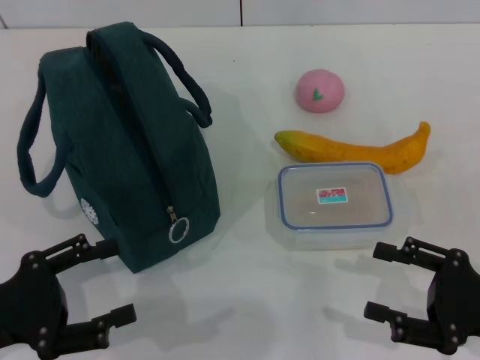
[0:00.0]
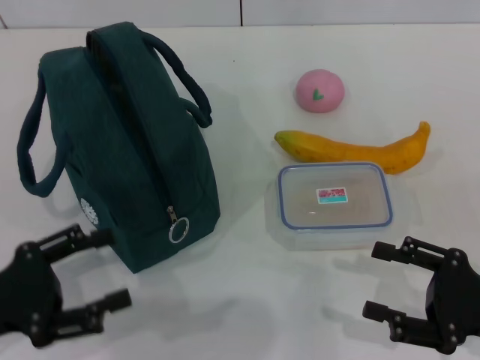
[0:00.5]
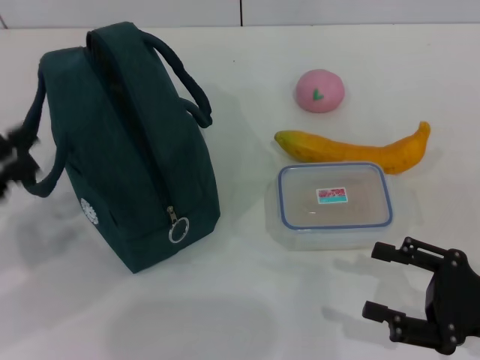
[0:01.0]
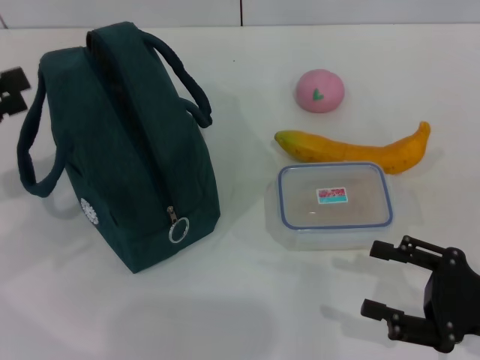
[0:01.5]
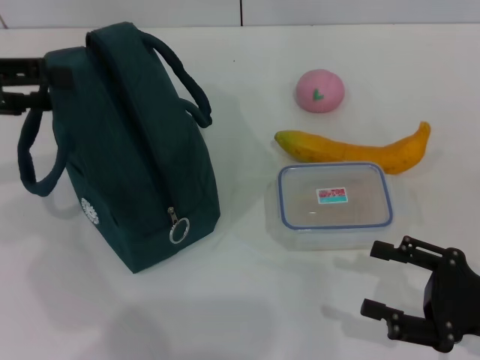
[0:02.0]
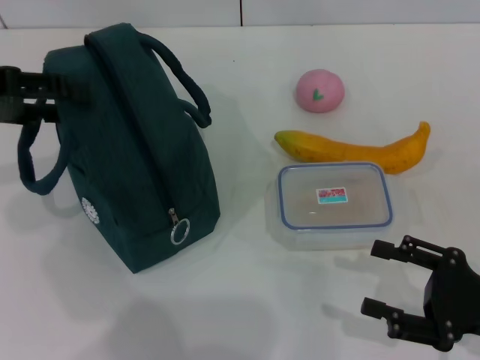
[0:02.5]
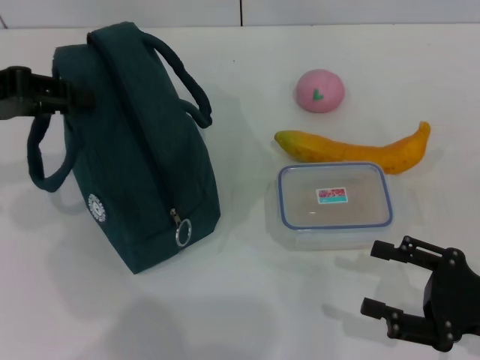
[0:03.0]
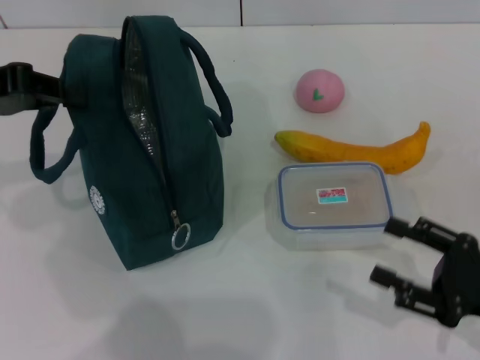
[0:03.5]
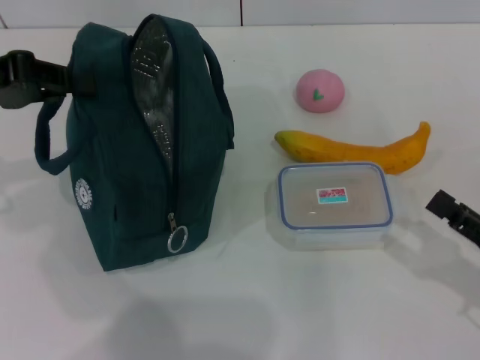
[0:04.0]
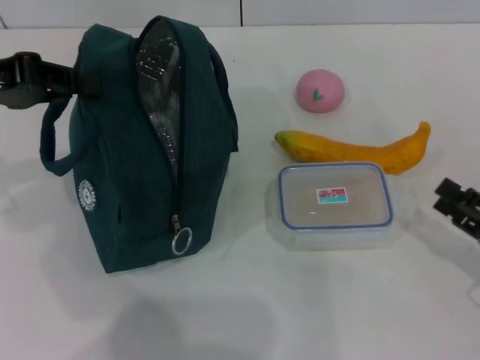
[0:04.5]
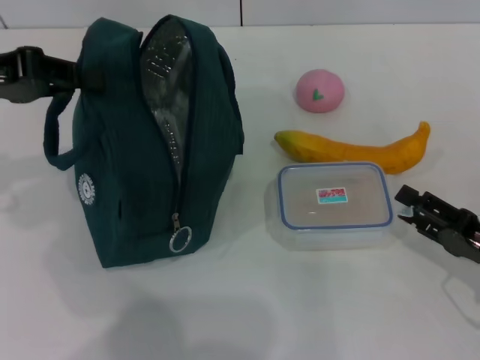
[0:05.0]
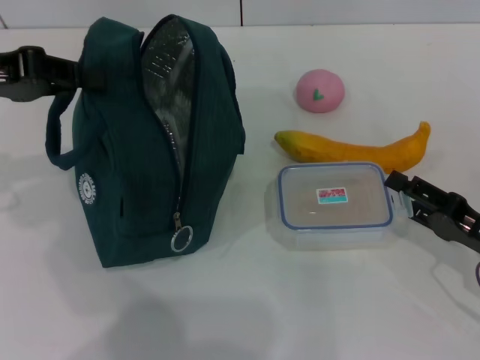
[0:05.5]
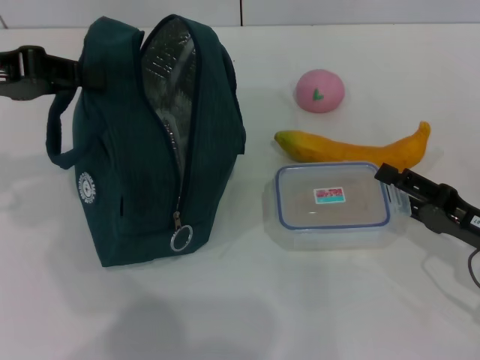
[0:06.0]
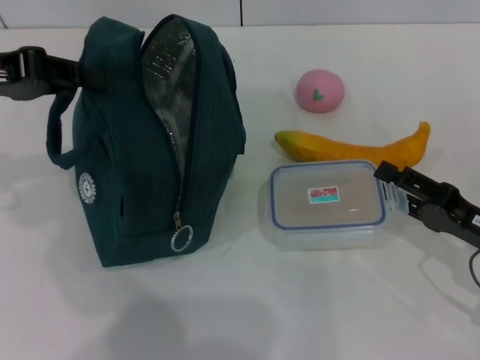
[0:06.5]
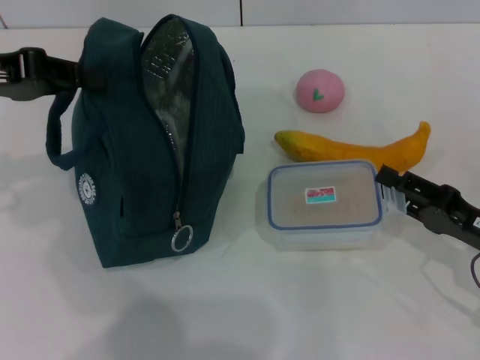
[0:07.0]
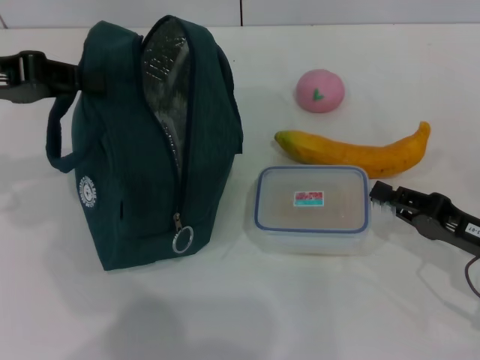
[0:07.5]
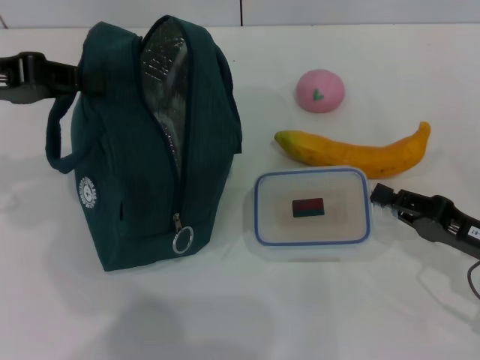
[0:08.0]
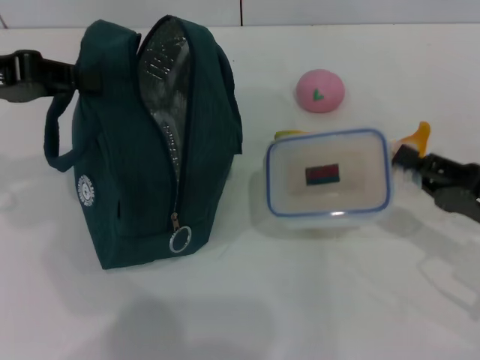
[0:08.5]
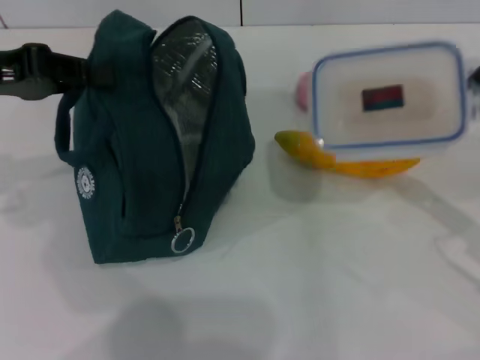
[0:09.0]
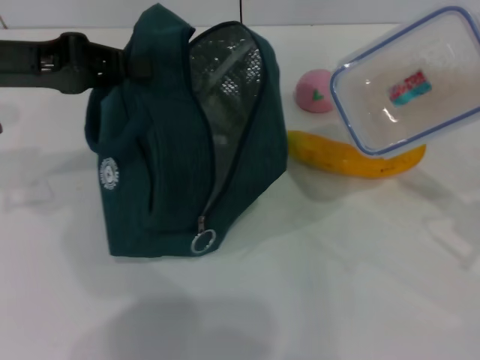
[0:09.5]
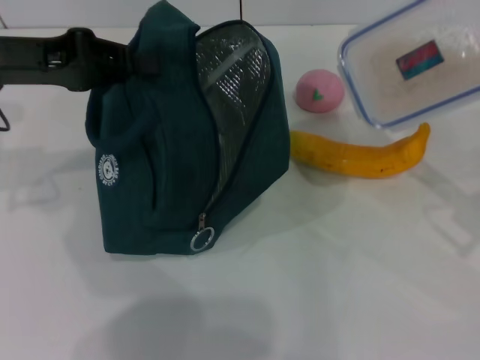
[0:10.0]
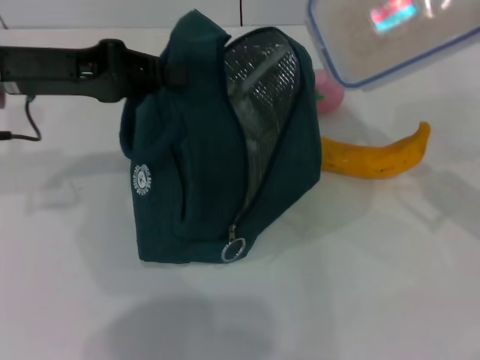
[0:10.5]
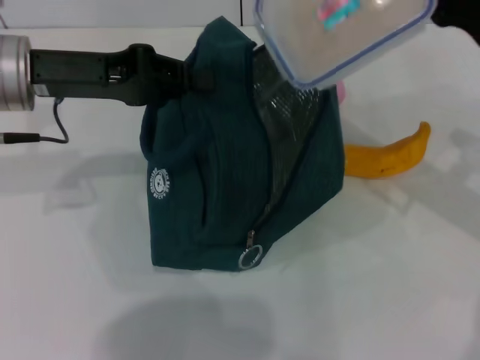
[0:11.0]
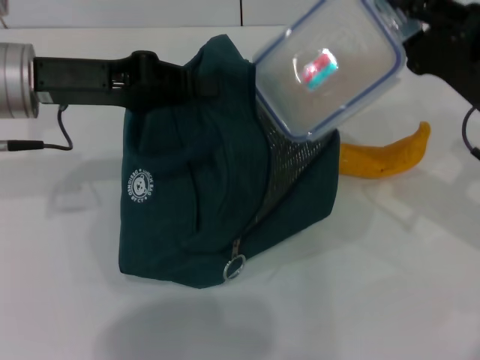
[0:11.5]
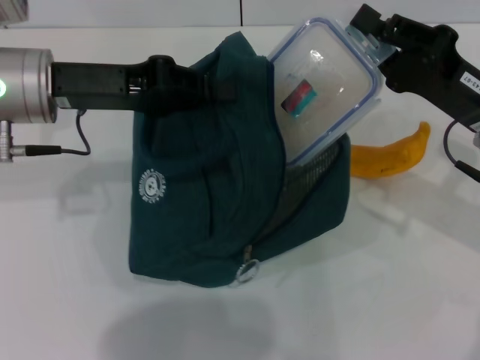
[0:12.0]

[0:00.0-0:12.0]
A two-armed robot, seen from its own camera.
Step, 0.0 to 4.0 s: Hold the lunch bag with your left hand.
Step, 4.5 to 7.5 s: Pick up the lunch box with your right hand.
0.0 to 2.0 s: The left gripper travels forward and upward by about 20 cm.
2.0 to 4.0 s: The left gripper closes its fingers.
4.0 to 6.0 s: The right gripper shifts about 5 cm forward.
6.0 to 8.0 s: The right gripper closes.
8.0 to 10.0 s: The right gripper goes approximately 10 cm upward.
10.0 to 12.0 s: The right gripper heads to the left, covering approximately 5 cm. Meanwhile the left gripper moves to the right, some 5 cm.

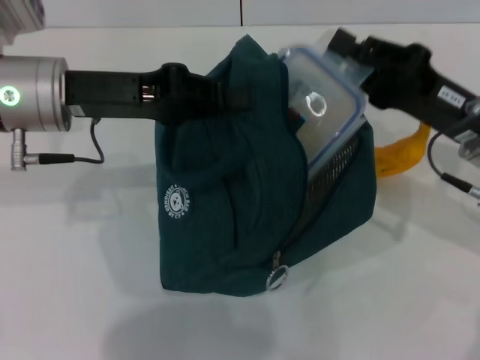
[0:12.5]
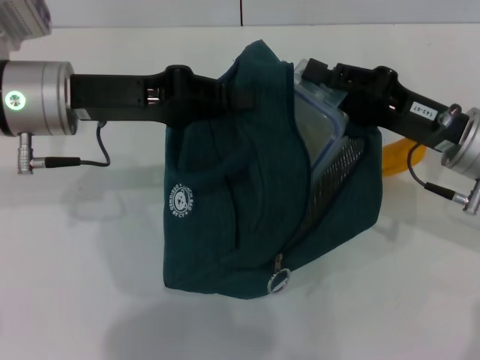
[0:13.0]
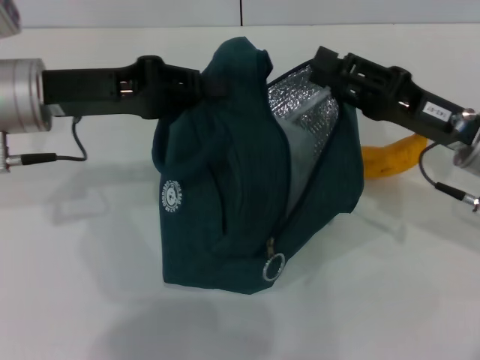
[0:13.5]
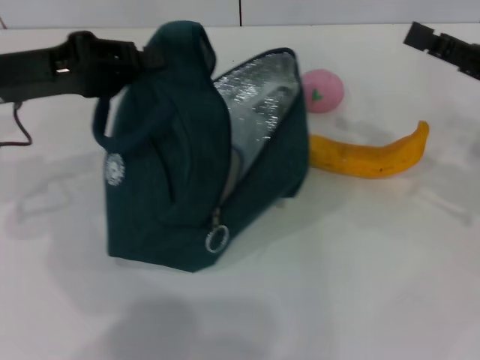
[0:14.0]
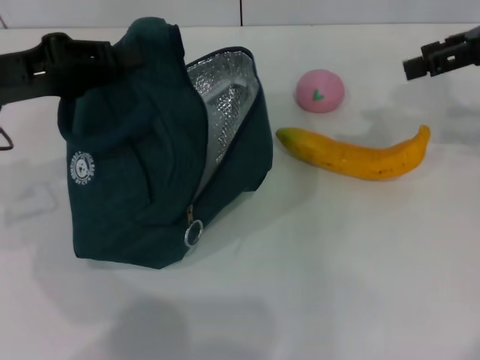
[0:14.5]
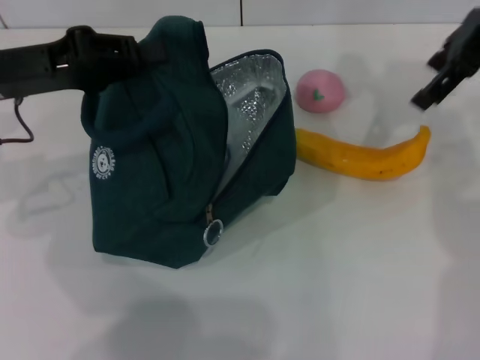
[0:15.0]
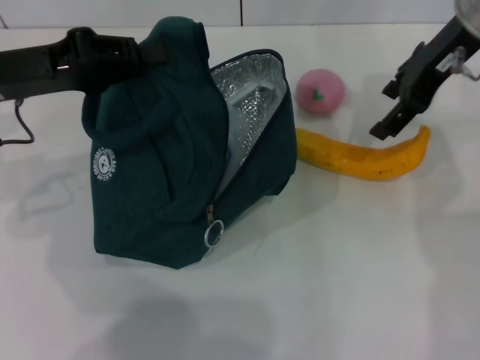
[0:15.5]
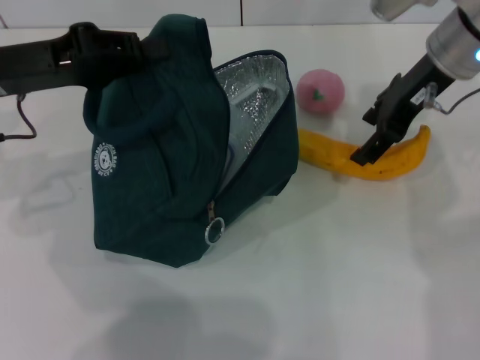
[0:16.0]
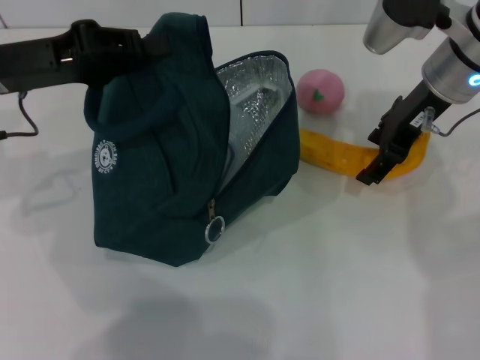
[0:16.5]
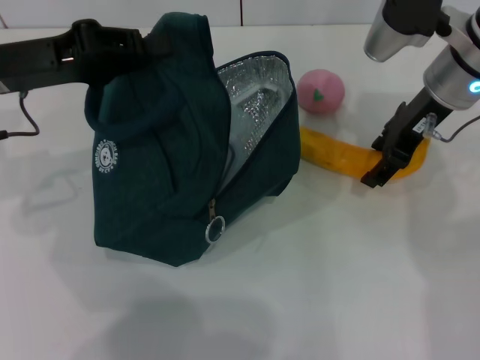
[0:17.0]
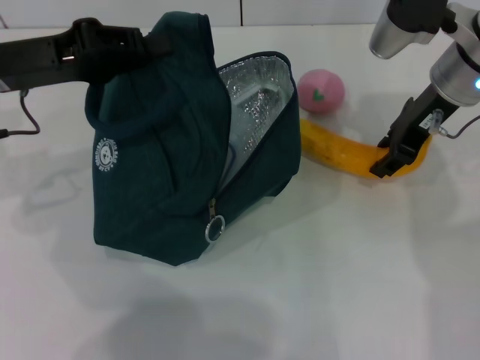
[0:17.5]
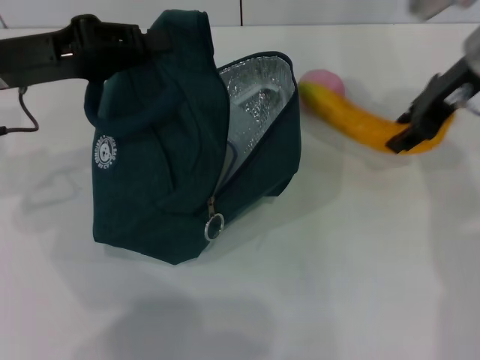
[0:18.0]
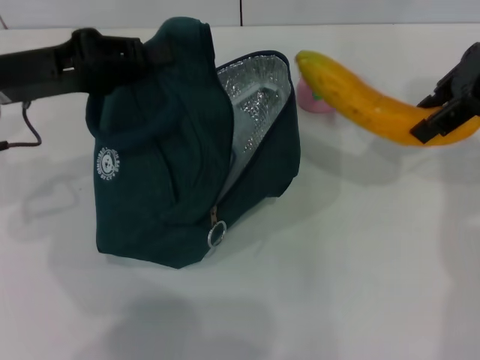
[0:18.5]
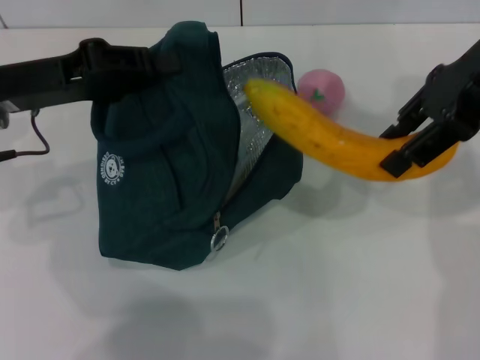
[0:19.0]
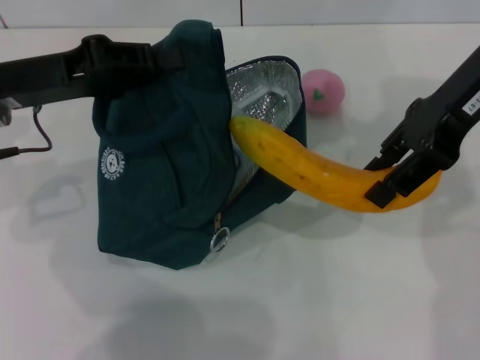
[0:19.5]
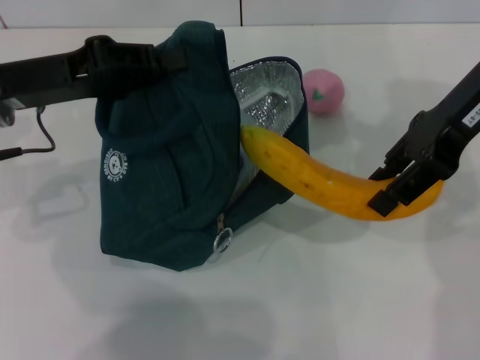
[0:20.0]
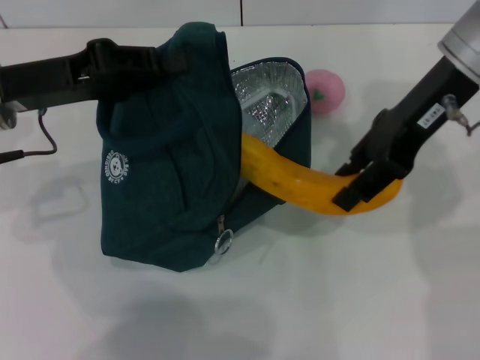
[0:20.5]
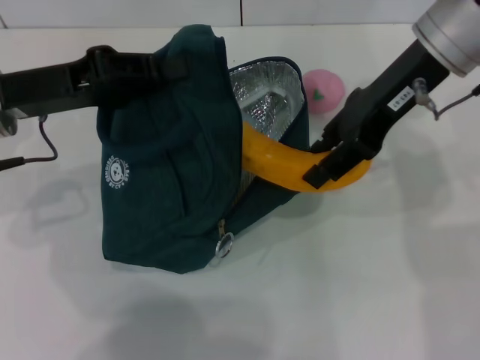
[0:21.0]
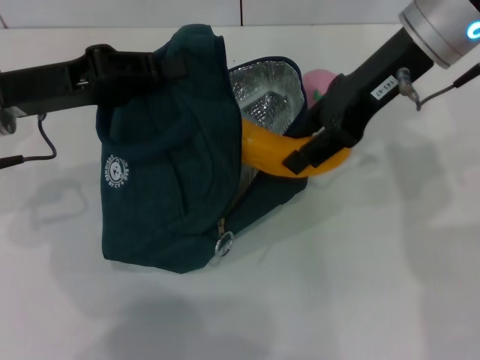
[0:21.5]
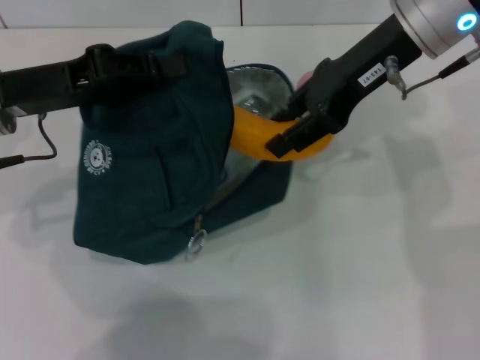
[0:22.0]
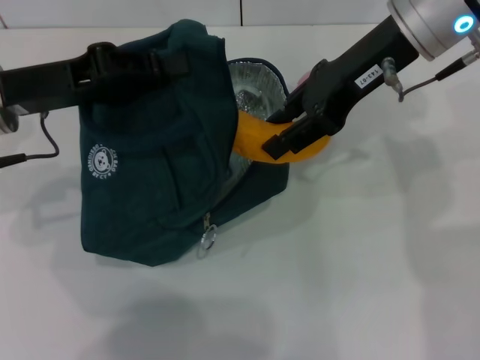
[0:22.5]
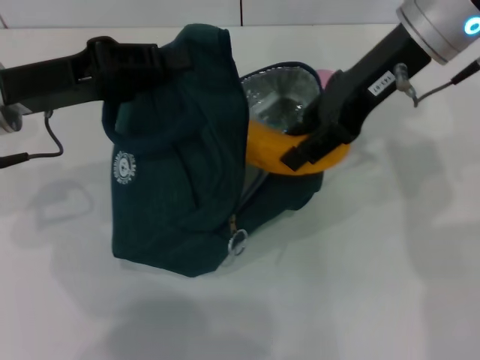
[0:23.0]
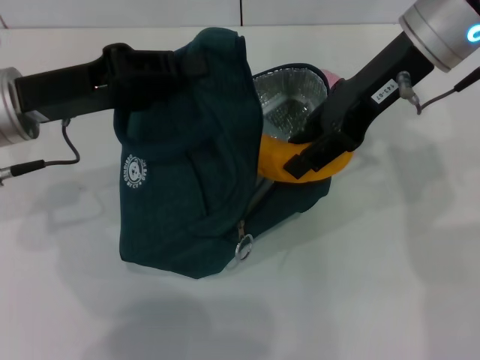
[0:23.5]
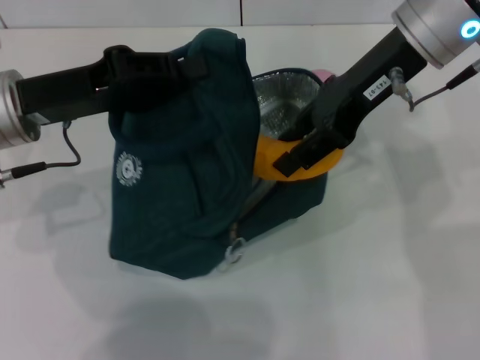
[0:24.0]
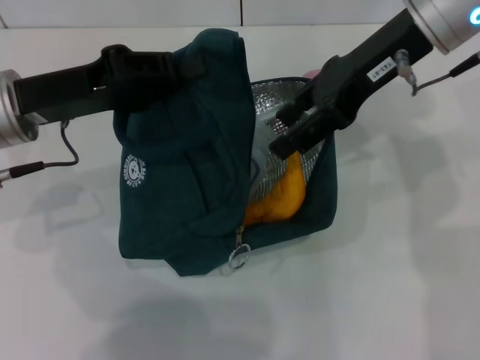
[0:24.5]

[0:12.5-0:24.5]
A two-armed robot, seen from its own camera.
Step, 14.0 to 17.0 s: Take the banana with your right hand.
Step, 17.5 to 24.0 s: Put the banana into the lunch bag with your right hand.
12.5 to 14.5 s: The right gripper is displaced upward, forward and to the right by some 20 cm, and opens. The left gripper heads to the left, covering some 10 cm.
14.5 to 16.5 s: The right gripper travels to the left and downward by some 15 cm.
16.5 to 18.5 s: The right gripper goes about 10 cm upward and to the right, and closes.
18.5 to 20.5 s: The right gripper shifts approximately 5 cm to the left.

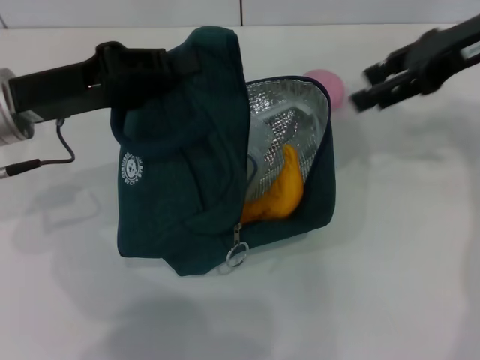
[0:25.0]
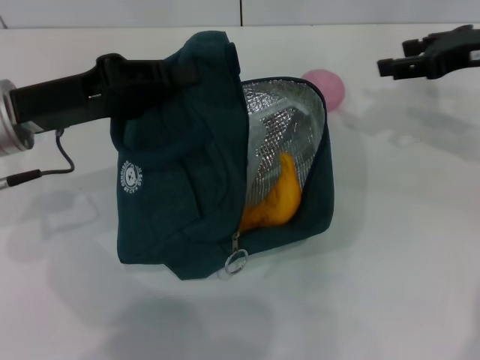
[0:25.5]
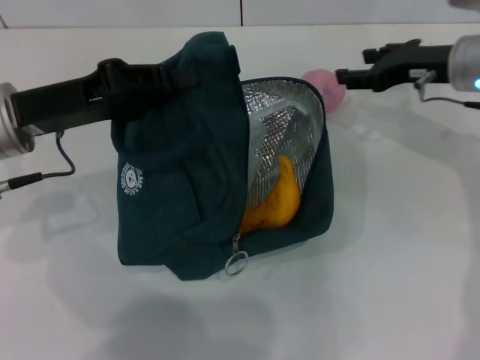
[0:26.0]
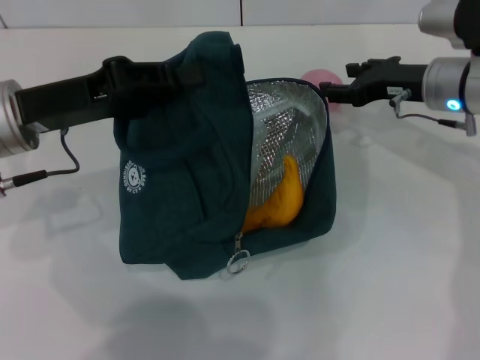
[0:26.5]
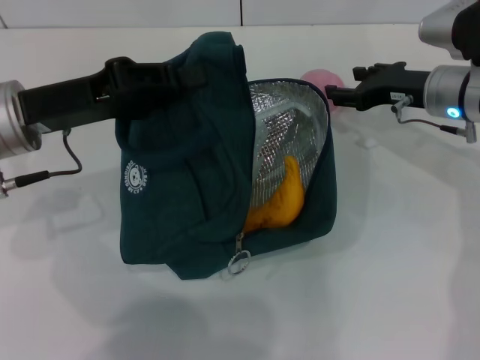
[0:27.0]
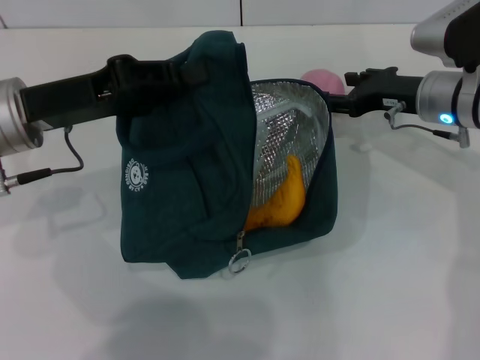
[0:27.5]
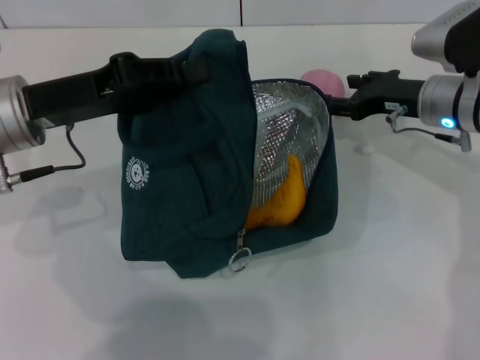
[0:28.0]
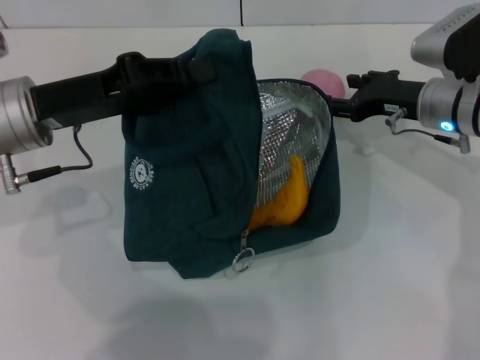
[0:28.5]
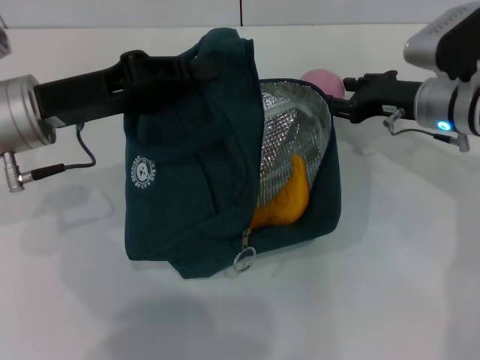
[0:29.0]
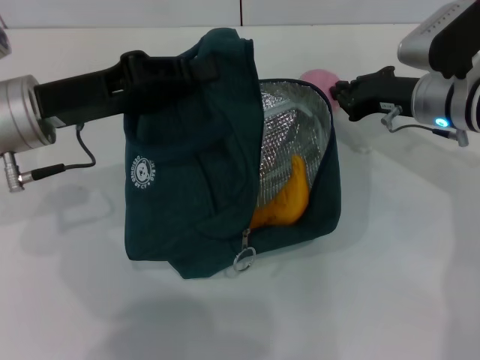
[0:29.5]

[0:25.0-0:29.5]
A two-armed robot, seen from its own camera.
25.0 to 27.0 s: The right gripper shifts about 15 cm downward.
27.0 to 29.5 s: The right gripper closes up.
